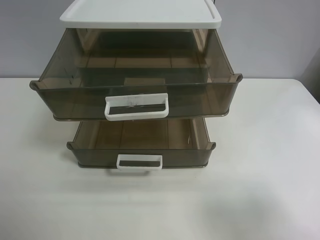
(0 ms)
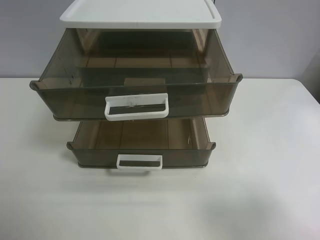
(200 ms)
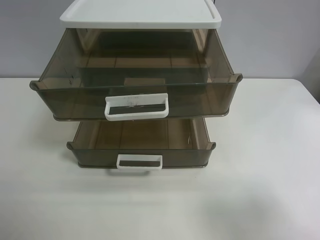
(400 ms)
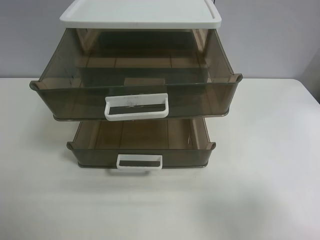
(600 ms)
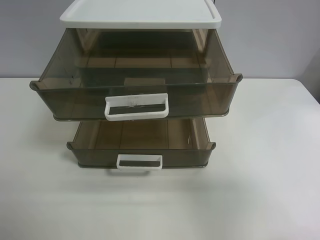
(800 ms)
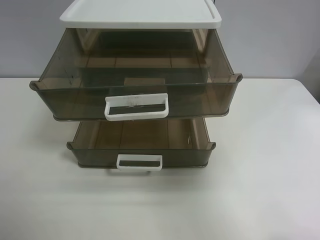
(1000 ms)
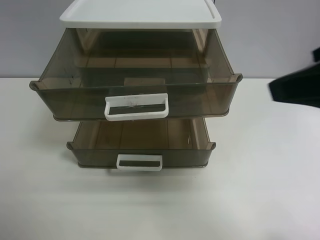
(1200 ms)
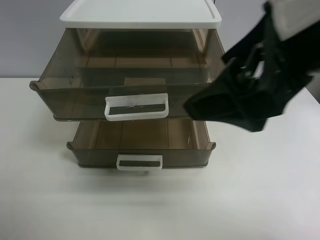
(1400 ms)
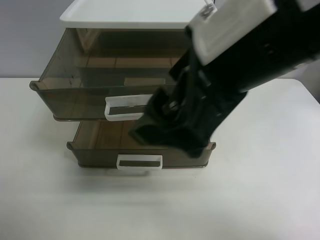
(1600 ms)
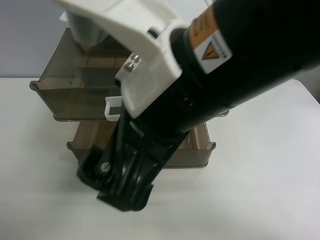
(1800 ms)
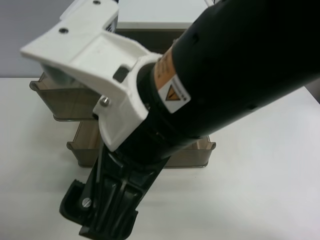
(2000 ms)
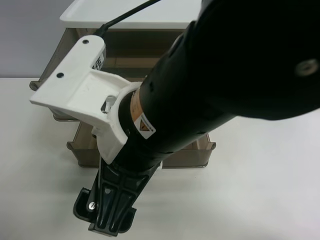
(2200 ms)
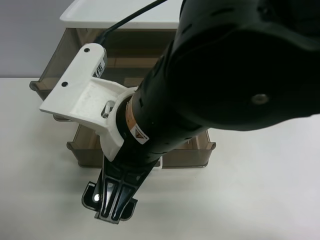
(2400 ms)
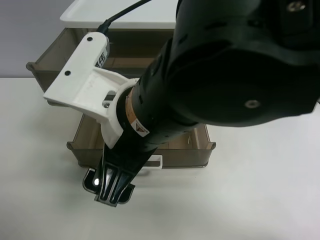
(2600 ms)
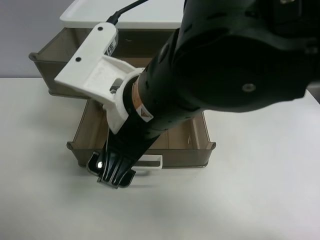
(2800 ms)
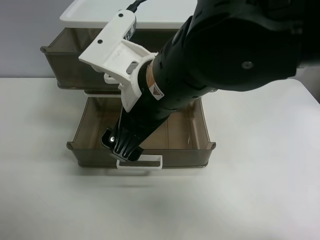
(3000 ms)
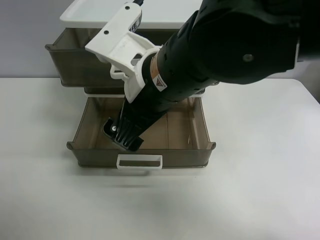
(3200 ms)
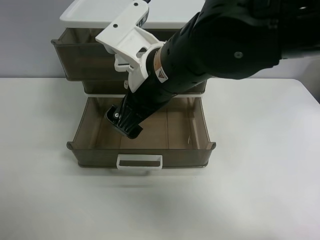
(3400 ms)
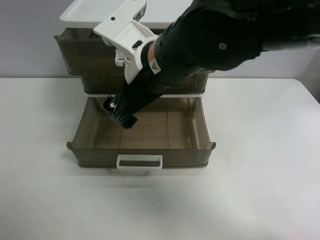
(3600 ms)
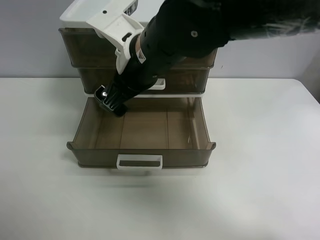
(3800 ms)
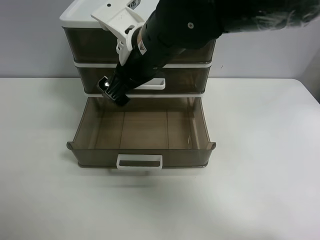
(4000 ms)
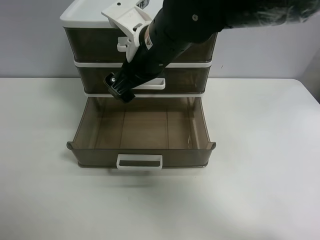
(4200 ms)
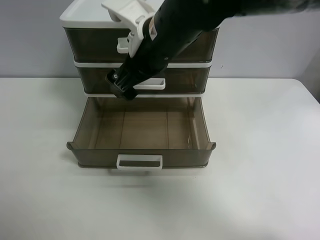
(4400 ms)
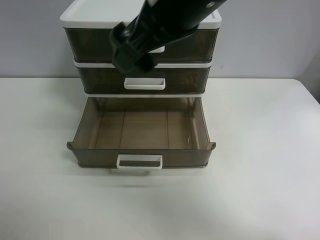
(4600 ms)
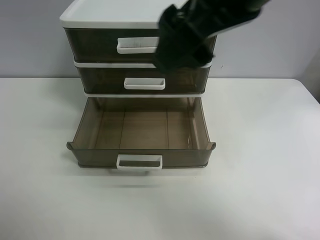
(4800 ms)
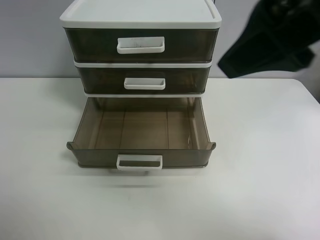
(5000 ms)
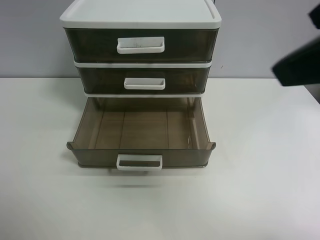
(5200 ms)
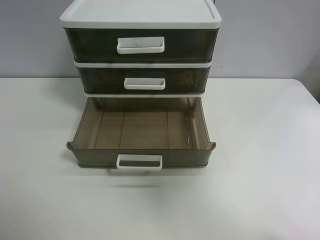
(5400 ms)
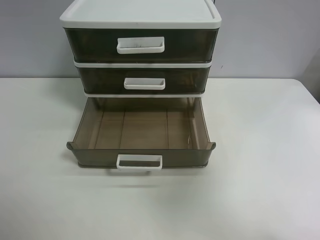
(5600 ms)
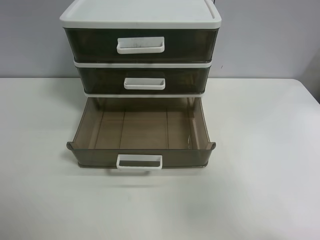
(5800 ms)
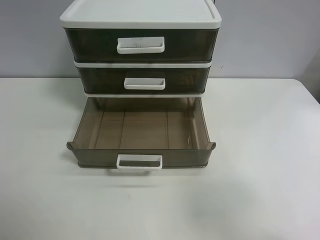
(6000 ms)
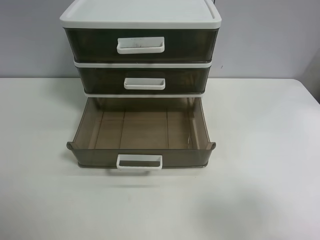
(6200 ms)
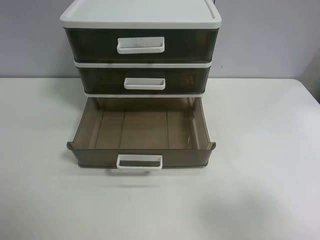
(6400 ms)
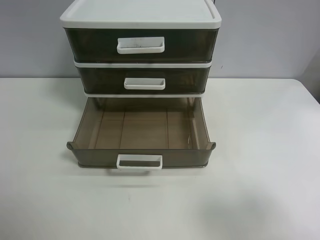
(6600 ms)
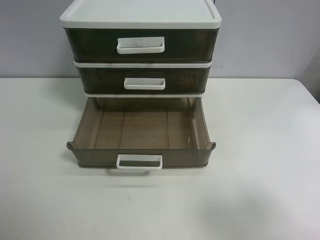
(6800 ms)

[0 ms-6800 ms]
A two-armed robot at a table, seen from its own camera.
Task of the whole recording: close the top drawer.
Step, 0 ms to 2400 ms: Use the right gripper to touch the topmost layer of the storage cabinet.
Step, 2600 ms to 4000 ms: Push the top drawer closed.
0 ms to 1400 ms: The right gripper moves to the left, forward and upward, roughly 25 cm.
1400 ms to 2800 ms: The right gripper goes about 15 cm to the left and downward.
2800 ms to 4000 ms: The right gripper moves forward, roughly 10 cm.
4000 ms to 5400 ms: The right gripper travels to the right, backward and upward by approximately 35 cm.
5400 ms to 6800 ms: The right gripper travels downward and backward by roughly 15 cm.
